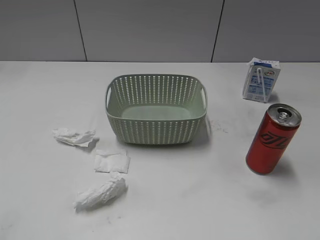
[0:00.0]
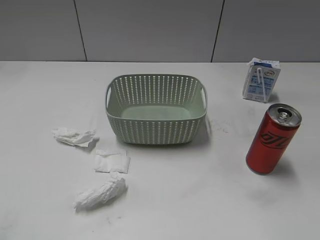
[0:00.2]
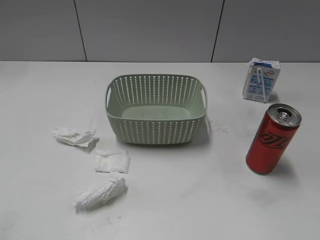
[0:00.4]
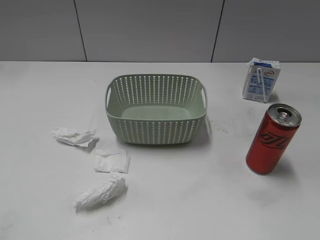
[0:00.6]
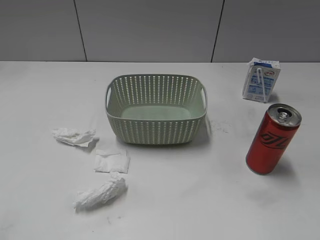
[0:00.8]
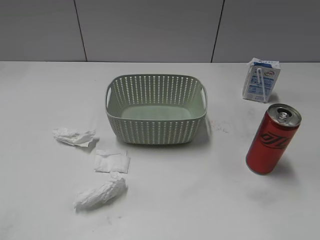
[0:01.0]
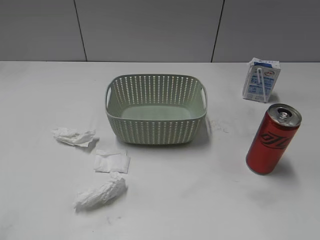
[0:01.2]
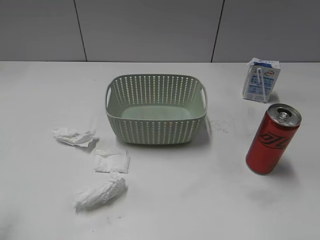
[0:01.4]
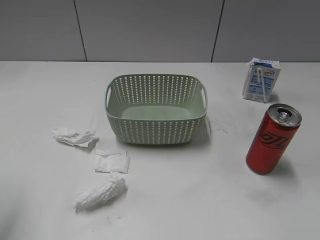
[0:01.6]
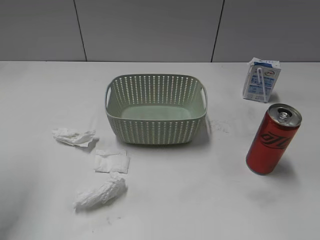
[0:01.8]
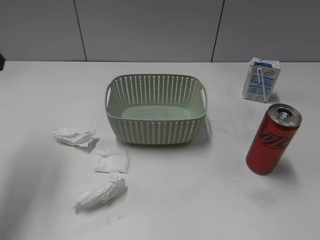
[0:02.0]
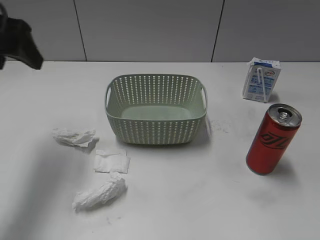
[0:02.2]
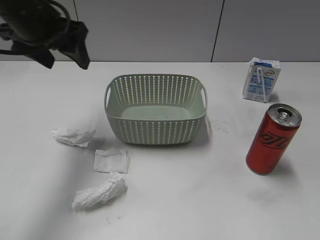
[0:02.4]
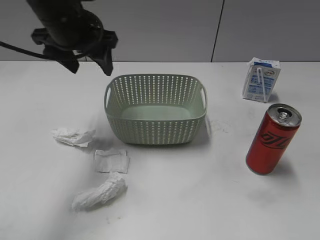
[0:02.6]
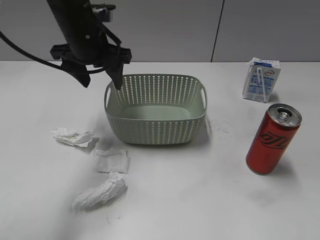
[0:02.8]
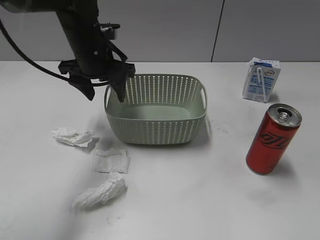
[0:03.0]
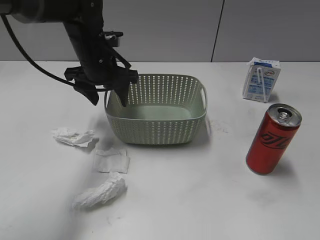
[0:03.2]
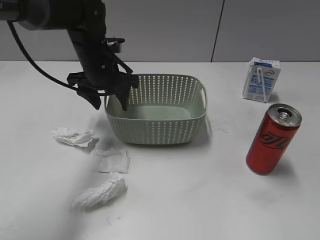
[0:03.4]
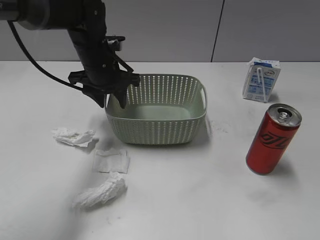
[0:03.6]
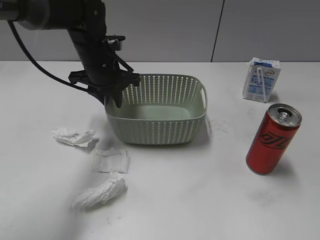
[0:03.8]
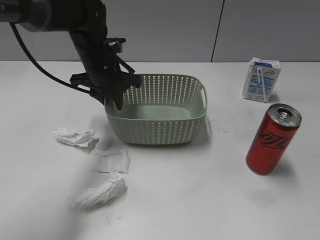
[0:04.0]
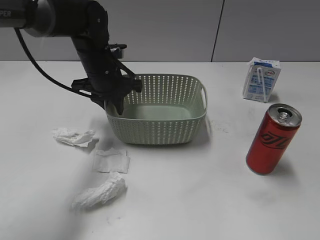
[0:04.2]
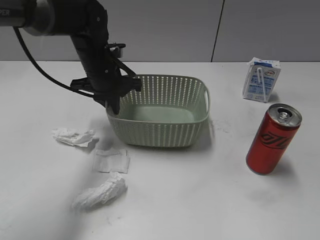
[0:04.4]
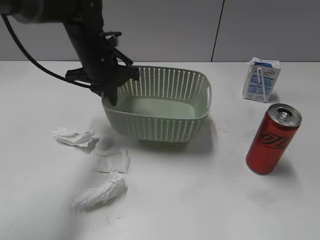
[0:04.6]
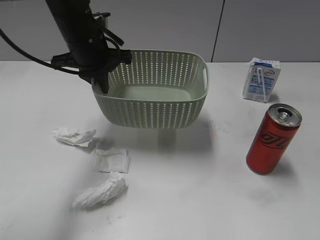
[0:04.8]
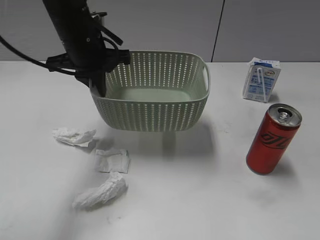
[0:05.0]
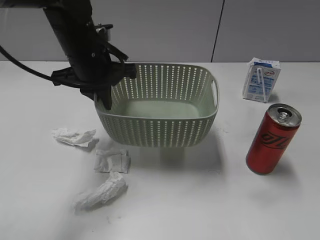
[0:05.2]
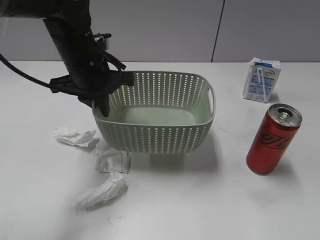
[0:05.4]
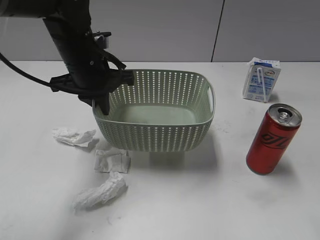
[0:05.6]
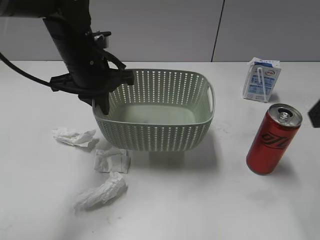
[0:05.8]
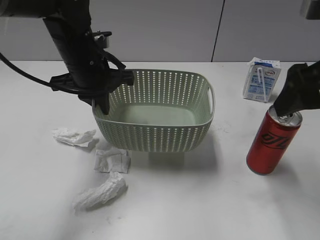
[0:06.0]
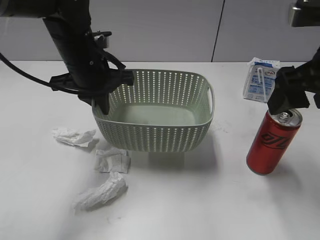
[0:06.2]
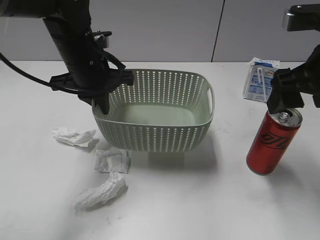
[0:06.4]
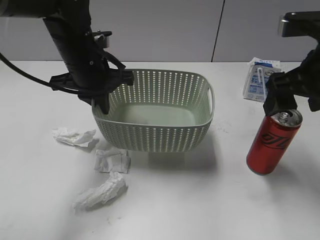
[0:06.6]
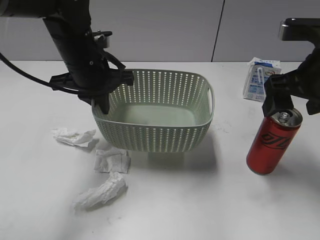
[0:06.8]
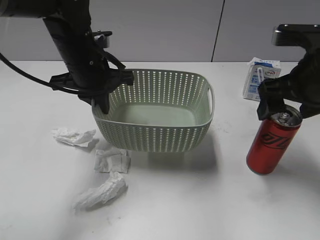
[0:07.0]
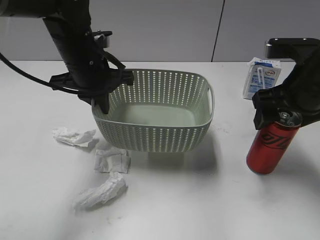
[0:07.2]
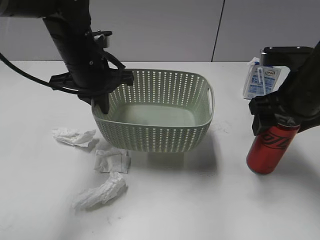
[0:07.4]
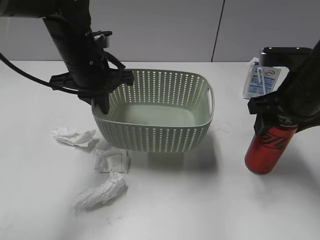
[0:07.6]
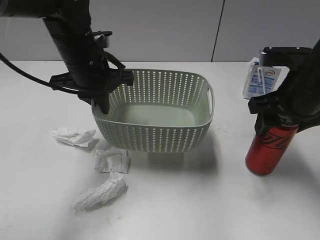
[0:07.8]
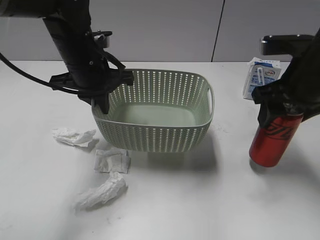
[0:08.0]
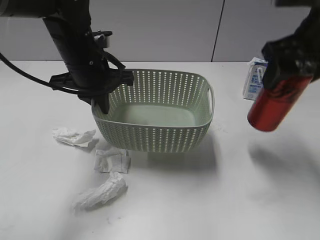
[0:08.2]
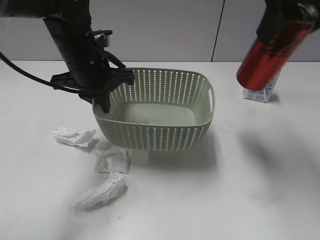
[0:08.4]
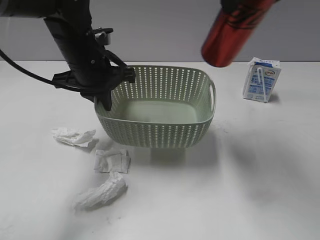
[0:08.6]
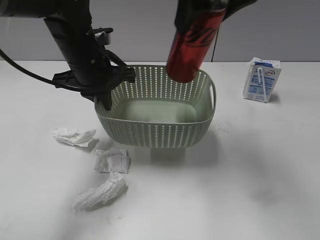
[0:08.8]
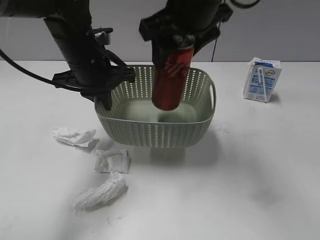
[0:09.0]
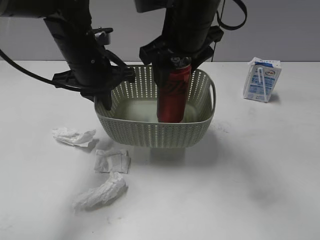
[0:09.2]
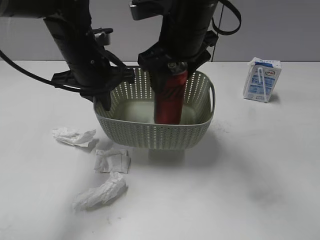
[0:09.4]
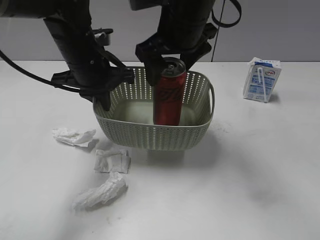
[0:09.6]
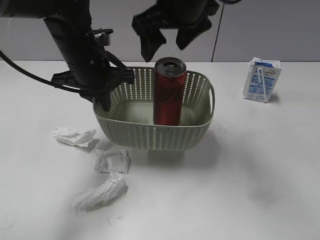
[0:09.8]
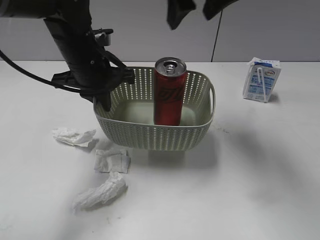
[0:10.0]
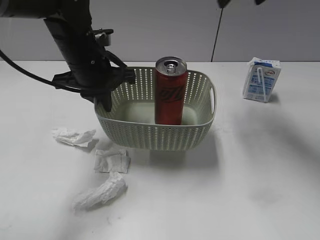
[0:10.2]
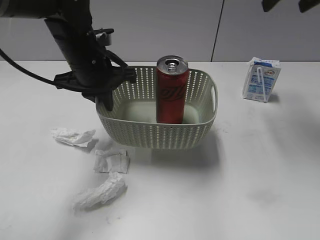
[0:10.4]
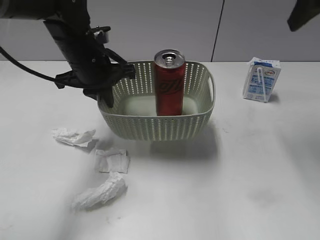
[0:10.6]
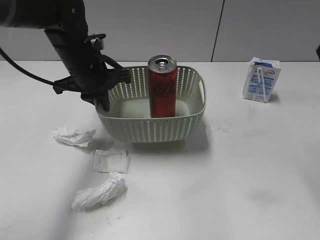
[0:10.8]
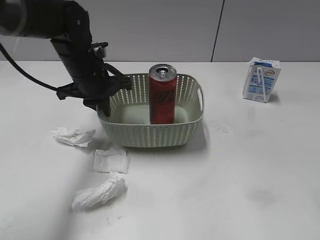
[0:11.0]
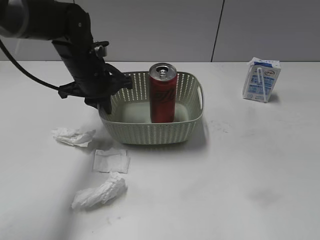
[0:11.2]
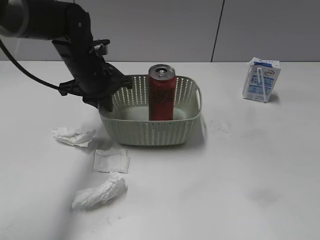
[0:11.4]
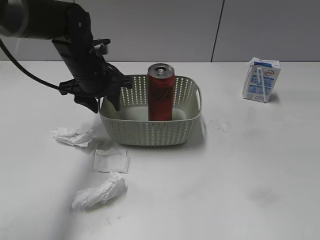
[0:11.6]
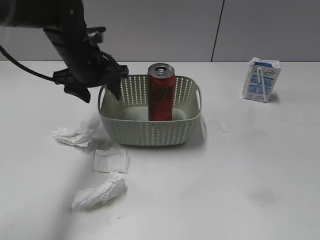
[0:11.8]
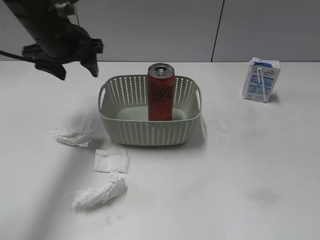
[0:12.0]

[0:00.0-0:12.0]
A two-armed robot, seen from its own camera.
Step, 0:02.0 to 0:04.4: Grasp the basket with left gripper.
Step, 0:04.6 to 0:05.6: Lift the basket with left gripper.
Step, 0:05.8 to 0:07.6: Grasp the cola can with right gripper.
Step, 0:07.8 to 0:09.6: Place the cola can in the basket with right gripper.
0:01.6 to 0:03.0: The left gripper moves forward, to the right and downward, roughly 35 cm.
0:03.0 to 0:04.4: The left gripper closes its fingers.
0:04.4 to 0:06.0: The left gripper goes approximately 5 cm backward and upward. The right gripper moves forward, roughly 20 cm, and opens.
0:06.0 to 0:07.6: The right gripper is displaced downward and forward by some 10 cm, and closes up.
0:07.6 to 0:09.0: The right gripper shifts some 20 cm to the left and upward.
0:09.0 to 0:10.4: The right gripper goes approximately 20 cm to the right, and opens its fingers.
0:10.4 to 0:12.0: The left gripper travels to the left by approximately 5 cm, and opens, while the right gripper goes about 40 cm backward.

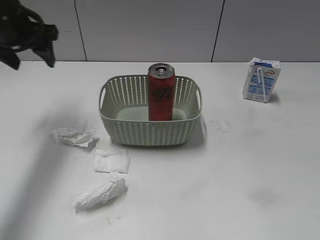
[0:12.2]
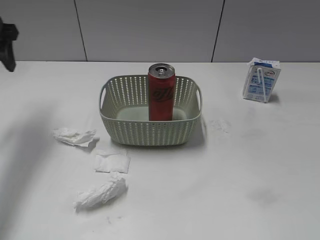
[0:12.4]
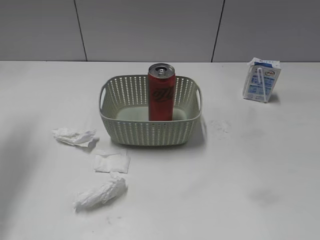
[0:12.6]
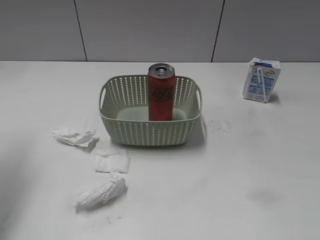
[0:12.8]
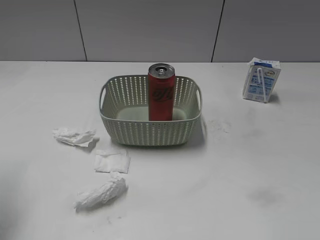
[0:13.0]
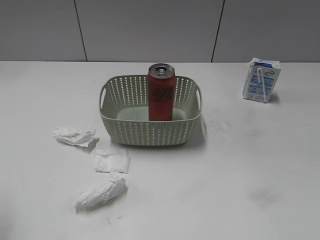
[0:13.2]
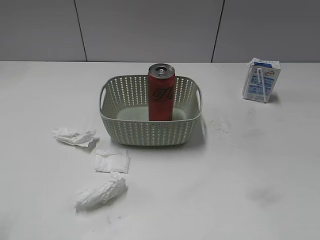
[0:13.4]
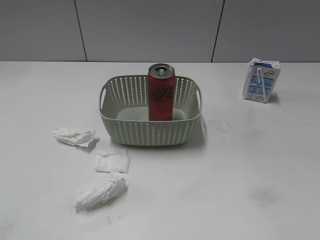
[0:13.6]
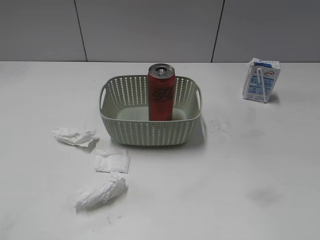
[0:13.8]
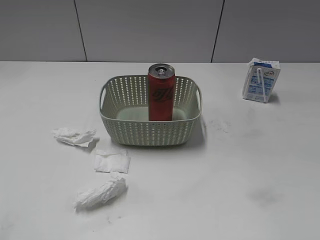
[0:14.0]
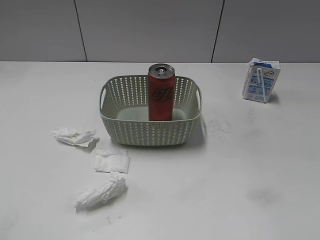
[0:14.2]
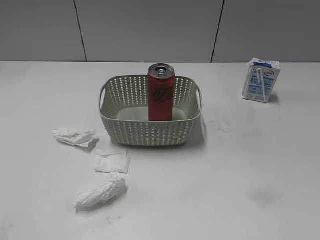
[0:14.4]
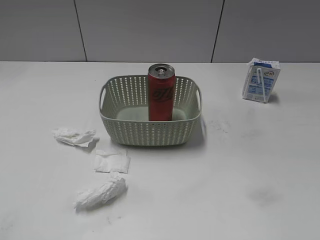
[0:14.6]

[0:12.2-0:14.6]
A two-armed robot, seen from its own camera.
0:12.2 to 0:13.4: The left gripper moves backward, some 30 cm.
